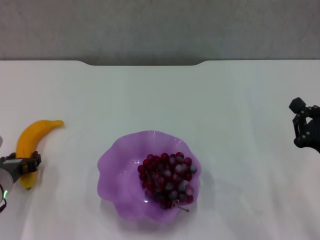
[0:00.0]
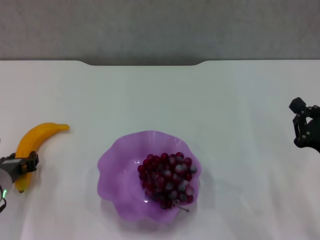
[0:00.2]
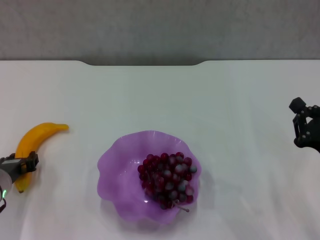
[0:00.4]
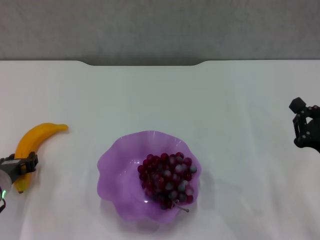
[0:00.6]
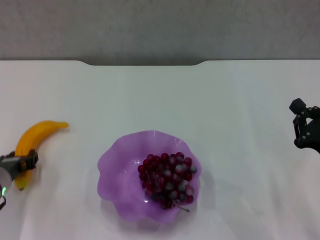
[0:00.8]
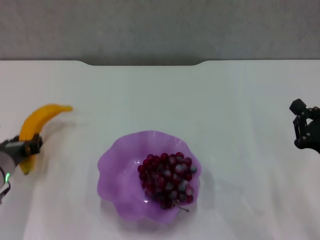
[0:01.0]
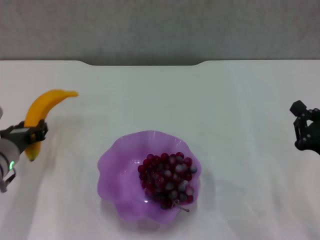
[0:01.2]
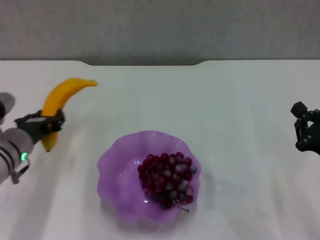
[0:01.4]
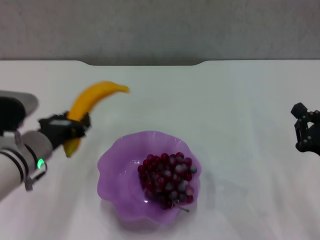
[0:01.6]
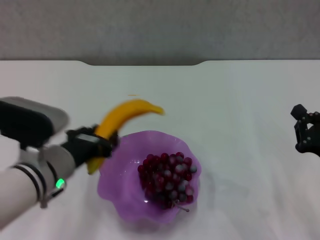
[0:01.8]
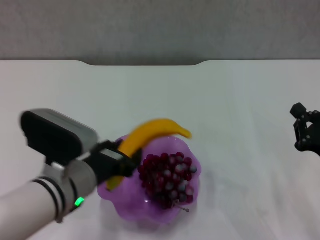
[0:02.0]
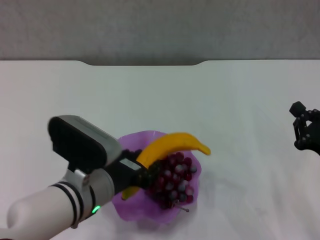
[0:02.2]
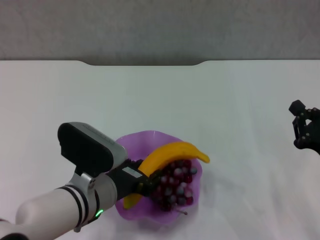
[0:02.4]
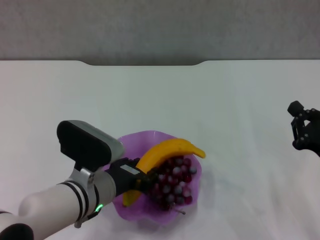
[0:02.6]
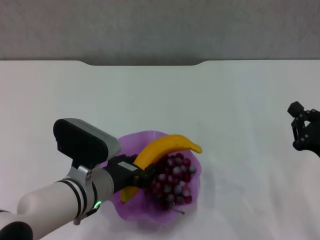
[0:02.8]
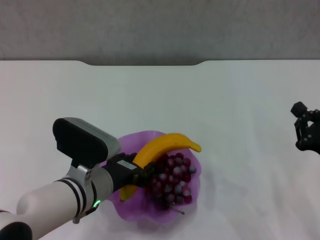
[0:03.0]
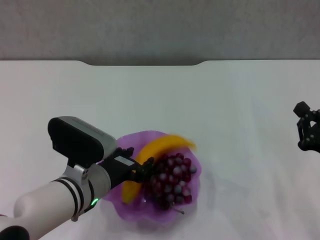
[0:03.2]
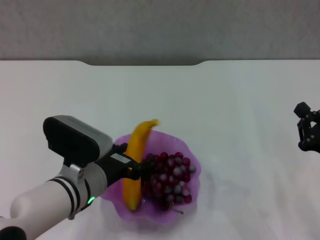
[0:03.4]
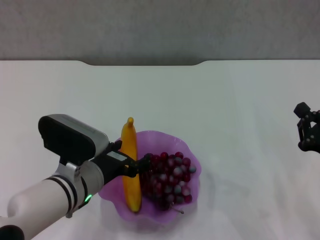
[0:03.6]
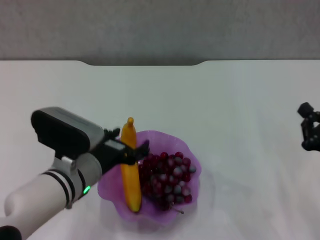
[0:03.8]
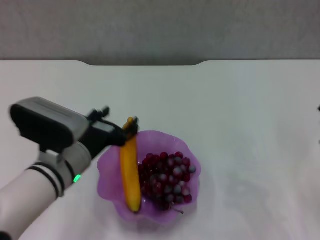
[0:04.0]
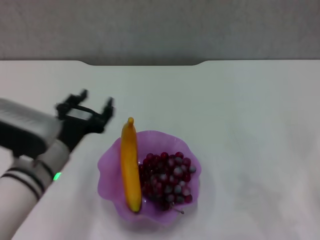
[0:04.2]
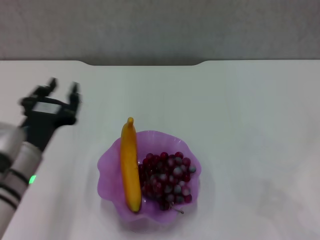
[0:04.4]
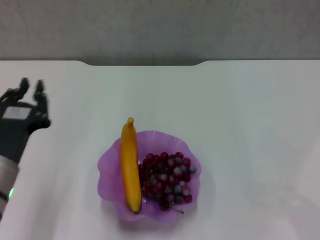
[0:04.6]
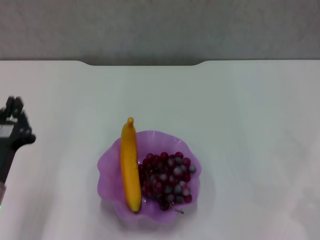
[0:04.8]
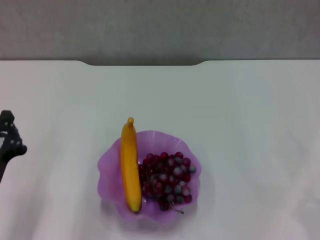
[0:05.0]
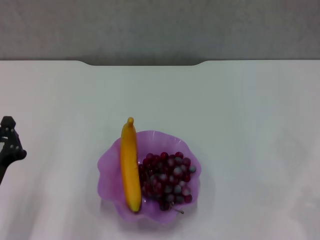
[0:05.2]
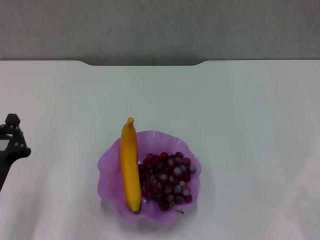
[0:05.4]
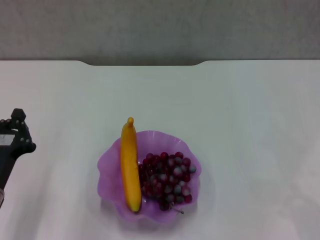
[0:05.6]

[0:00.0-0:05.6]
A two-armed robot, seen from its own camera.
Step, 0.8 to 3.6 s: Place the banana in the purple plate with left gripper.
0.0 to 1.4 s: The left gripper is displaced upward by about 5 cm, and closes.
1.4 to 2.8 s: The left gripper is displaced to the right and backward by roughly 15 cm.
2.8 to 4.2 s: The left gripper shifts by about 5 cm.
4.2 to 5.6 s: The left gripper goes roughly 10 cm to the left and backward, and closes its fingers.

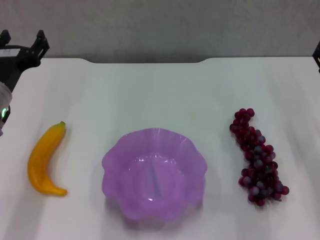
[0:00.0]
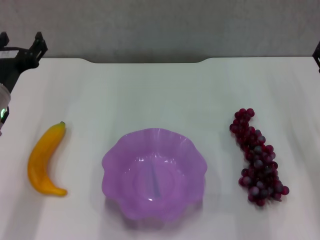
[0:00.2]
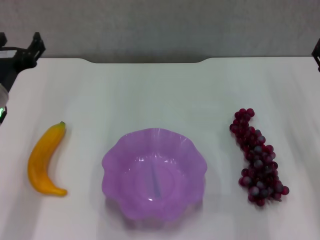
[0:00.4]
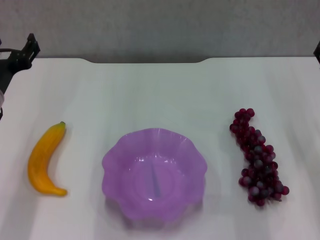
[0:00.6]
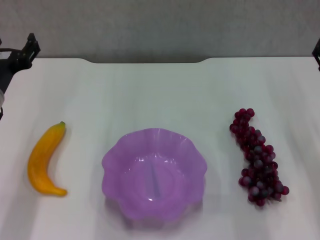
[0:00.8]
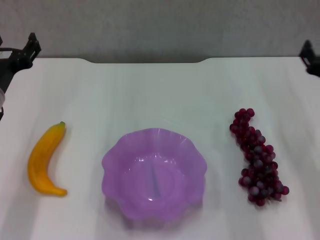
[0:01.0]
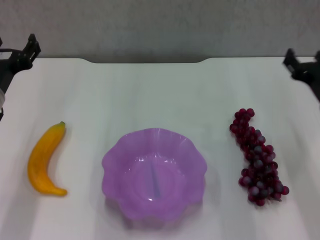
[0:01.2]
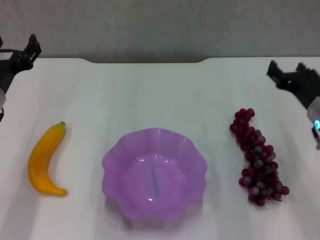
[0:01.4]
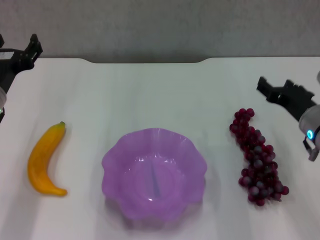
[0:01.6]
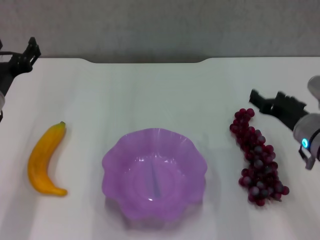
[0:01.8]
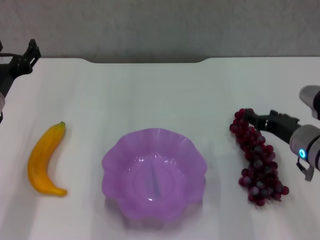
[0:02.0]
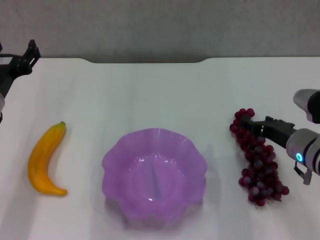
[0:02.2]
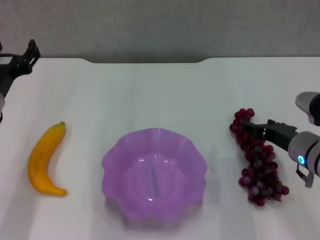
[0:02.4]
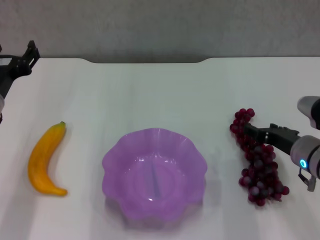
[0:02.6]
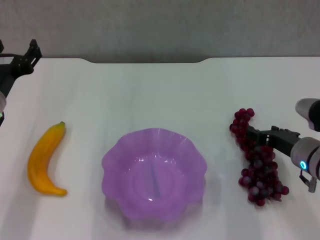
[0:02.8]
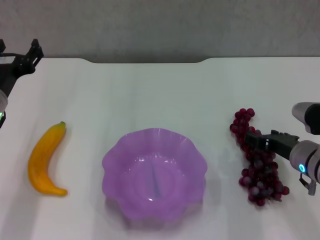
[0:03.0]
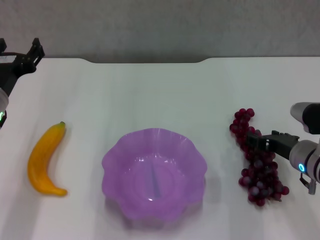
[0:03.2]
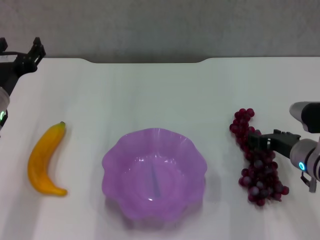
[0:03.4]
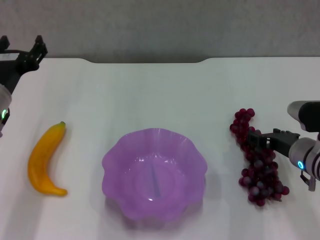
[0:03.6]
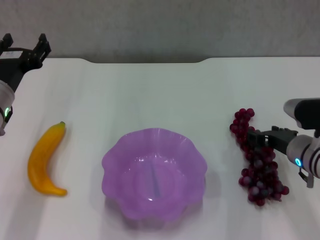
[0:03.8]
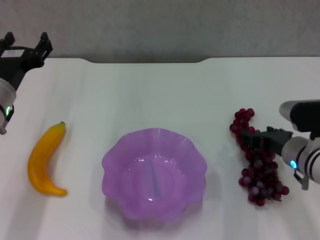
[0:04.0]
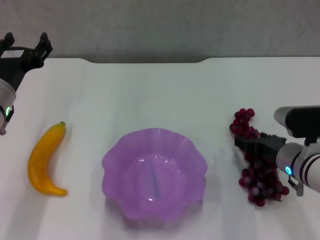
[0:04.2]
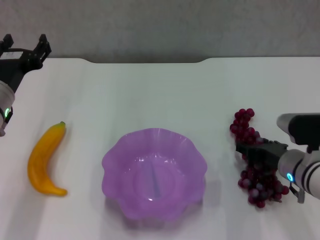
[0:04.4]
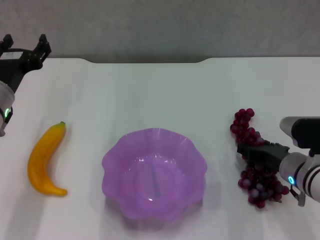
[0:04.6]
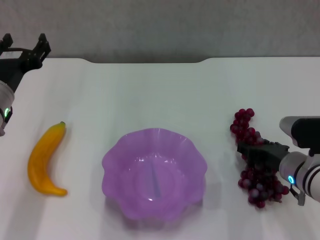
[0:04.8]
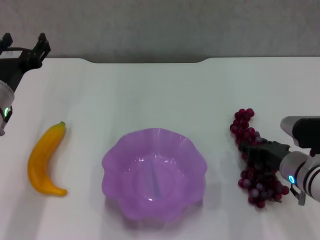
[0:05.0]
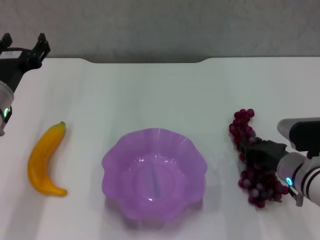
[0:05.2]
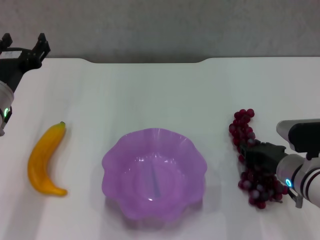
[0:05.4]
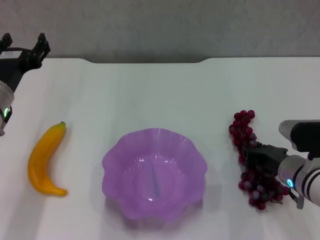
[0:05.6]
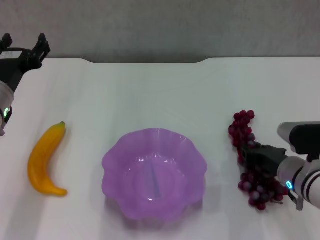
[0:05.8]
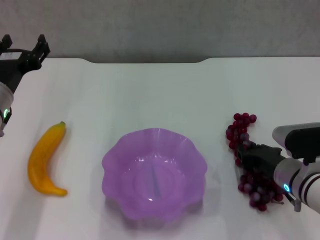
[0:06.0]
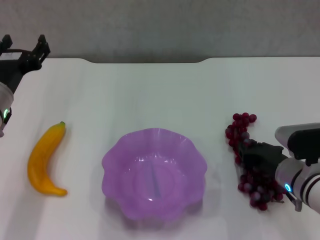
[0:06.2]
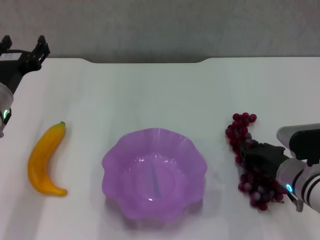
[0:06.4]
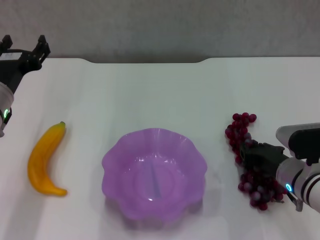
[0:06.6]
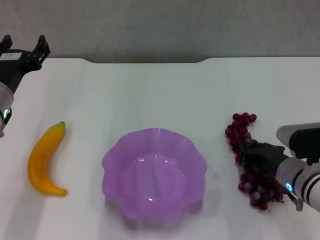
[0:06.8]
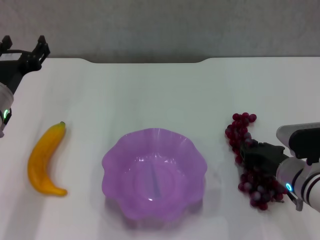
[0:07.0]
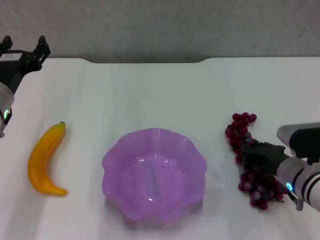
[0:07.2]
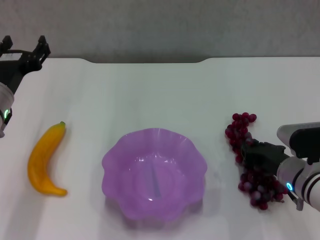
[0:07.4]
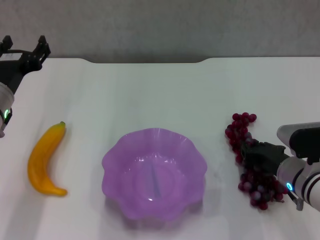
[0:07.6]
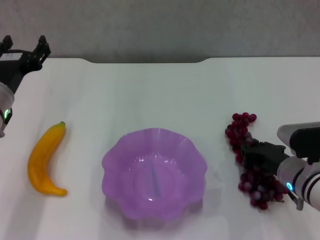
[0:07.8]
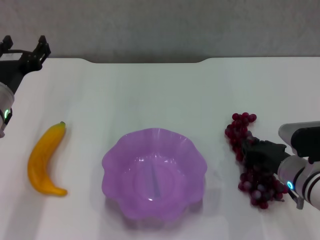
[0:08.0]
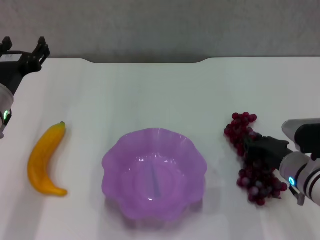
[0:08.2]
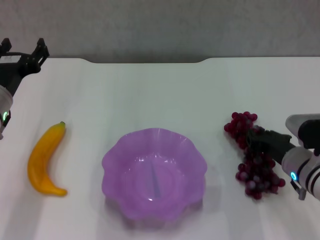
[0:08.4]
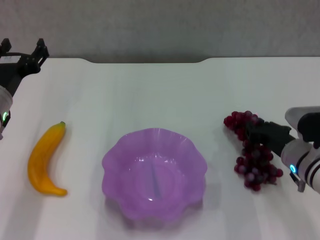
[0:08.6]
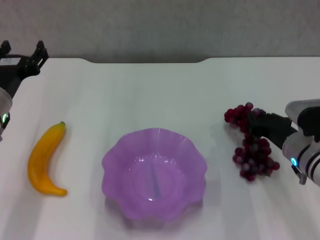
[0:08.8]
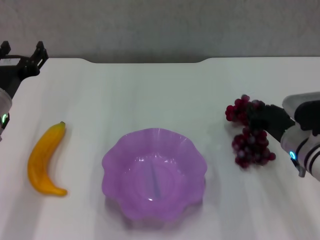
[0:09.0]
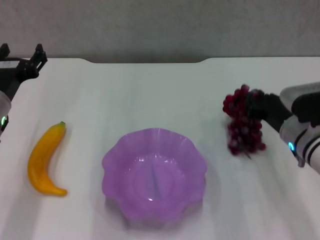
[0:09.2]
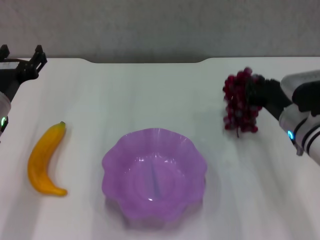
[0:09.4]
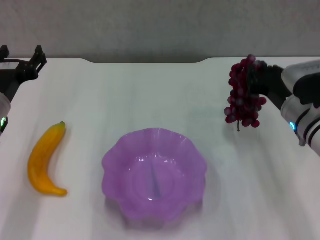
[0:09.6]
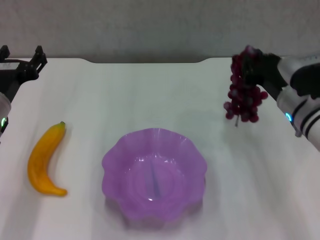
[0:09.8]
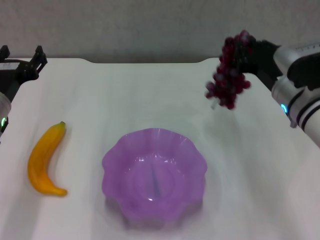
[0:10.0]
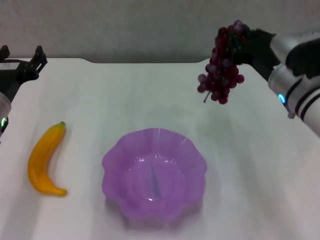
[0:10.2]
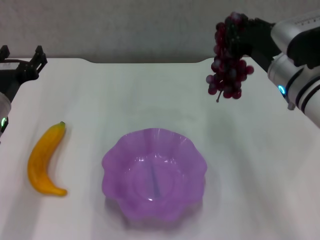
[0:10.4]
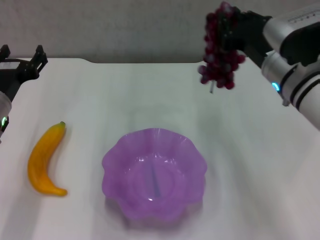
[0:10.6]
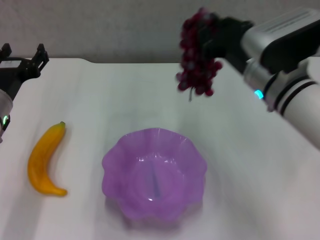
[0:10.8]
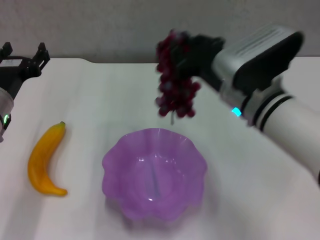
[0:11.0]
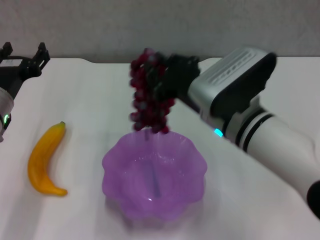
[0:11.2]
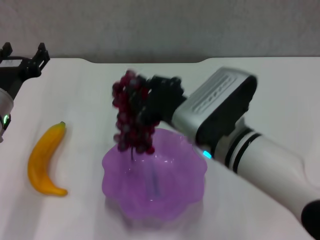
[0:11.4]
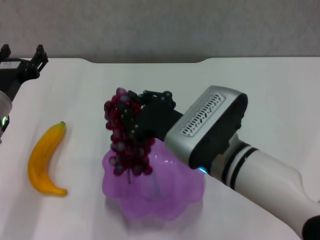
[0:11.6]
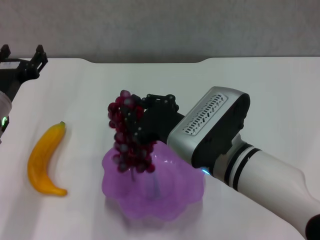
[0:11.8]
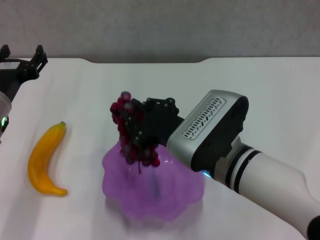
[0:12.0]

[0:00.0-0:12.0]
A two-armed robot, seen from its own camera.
Step, 0.0 to 7.8 s: Grasp the grape with right gripper.
0.0 to 1.6 s: The right gripper ends up about 5 cm from where it was.
1.6 to 3.0 s: The grippers stay close to where they were, moving slightly.
3.0 to 4.4 s: There are only small adjustments of the grippers.
4.4 to 6.0 s: The right gripper closes up.
6.0 to 7.6 s: Both grippers stay put.
7.6 to 9.0 s: There are only small adjustments of the grippers.
9.0 to 10.4 s: The right gripper heads upward and to the left, covering roughly 15 cm.
10.4 to 12.0 s: The right gripper heads to the left and backward, covering roughly 15 cm.

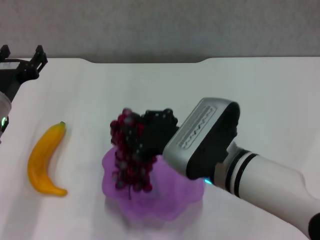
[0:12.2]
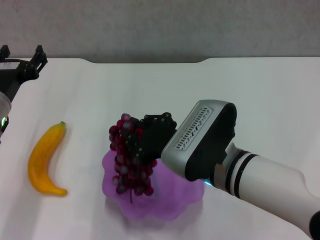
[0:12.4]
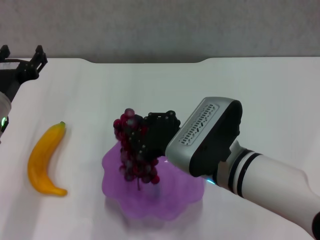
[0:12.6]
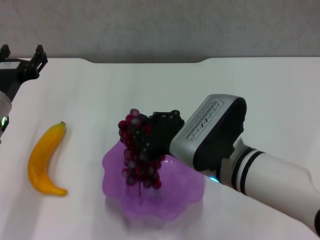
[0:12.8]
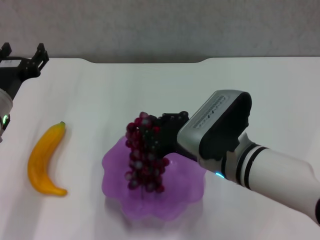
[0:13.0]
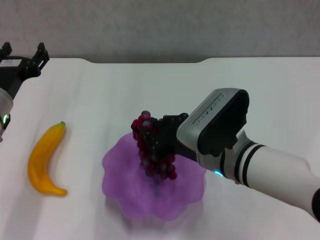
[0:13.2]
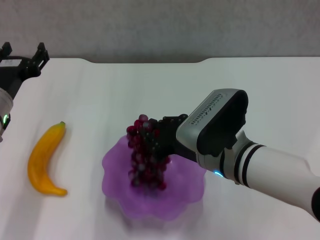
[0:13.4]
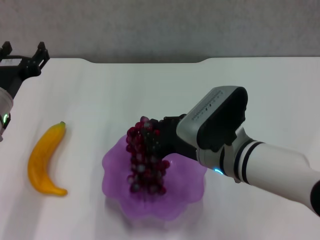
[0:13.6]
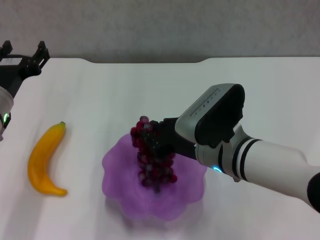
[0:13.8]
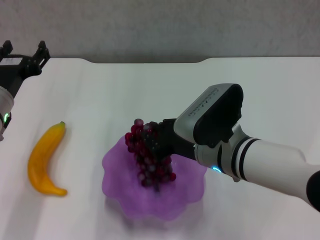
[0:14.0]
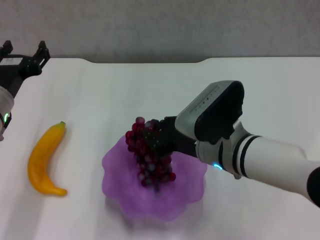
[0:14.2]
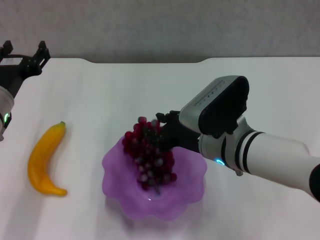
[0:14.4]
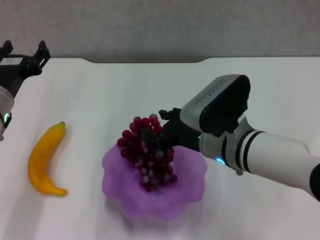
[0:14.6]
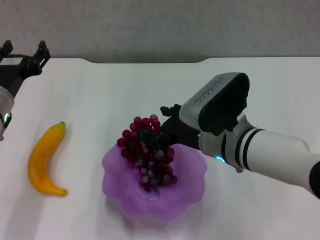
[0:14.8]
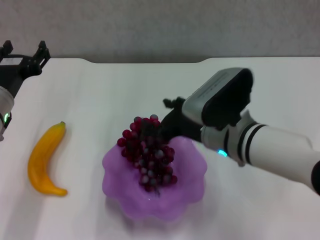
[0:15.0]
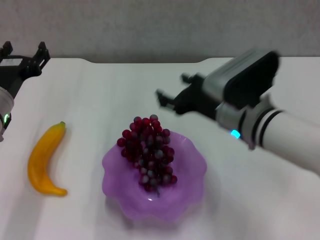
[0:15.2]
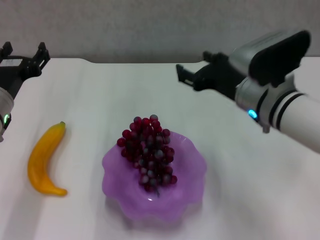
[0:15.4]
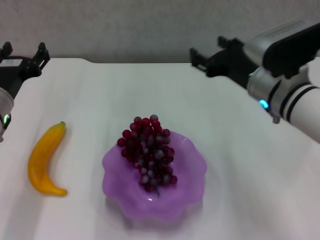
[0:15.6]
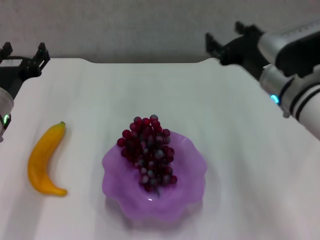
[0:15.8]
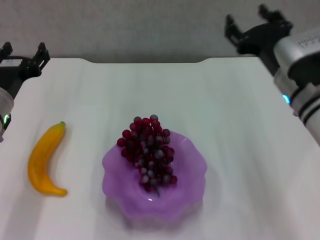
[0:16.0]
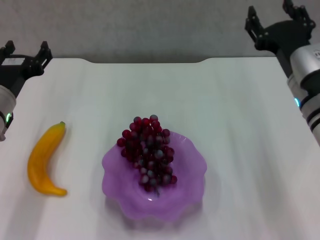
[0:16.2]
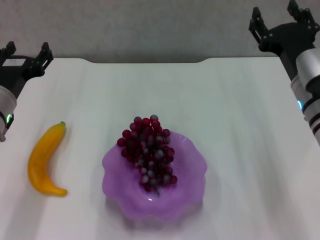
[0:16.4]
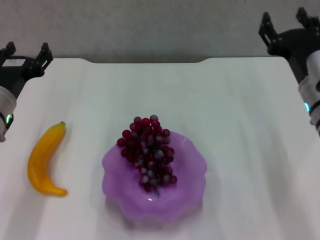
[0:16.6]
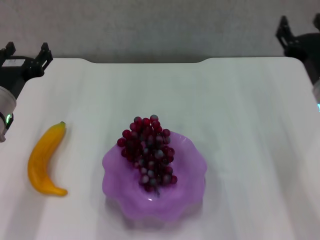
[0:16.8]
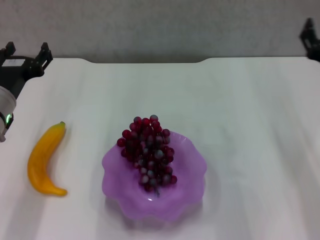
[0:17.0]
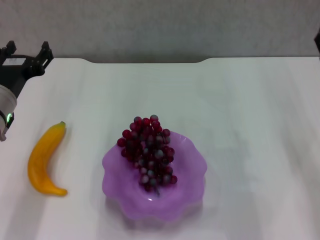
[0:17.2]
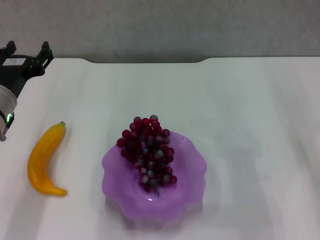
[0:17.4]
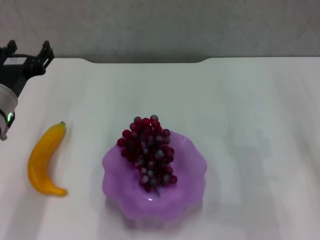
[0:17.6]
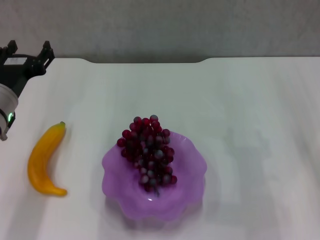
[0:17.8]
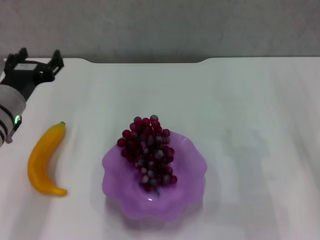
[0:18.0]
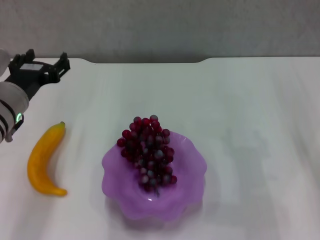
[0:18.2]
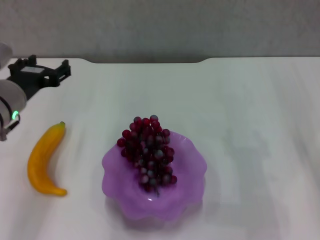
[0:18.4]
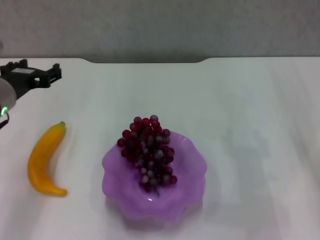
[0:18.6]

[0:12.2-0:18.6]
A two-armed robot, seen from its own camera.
Step, 12.2 to 15.0 s: Place the grape in the purple plate with right gripper.
12.2 to 13.8 s: The grippers move only a little.
13.8 to 15.4 s: The right gripper goes roughly 5 cm to the right, and opens.
15.4 to 17.0 s: The right gripper shifts some 10 cm to the right.
17.0 to 18.6 s: The right gripper moves about 5 cm.
